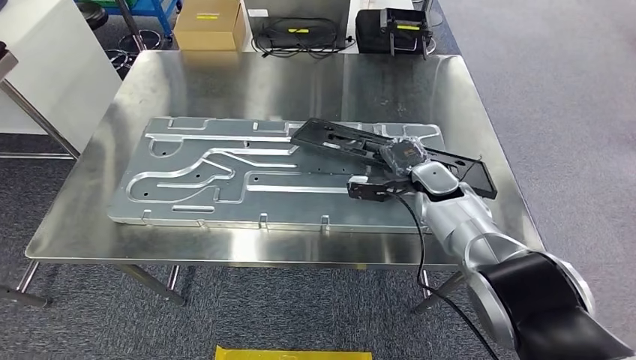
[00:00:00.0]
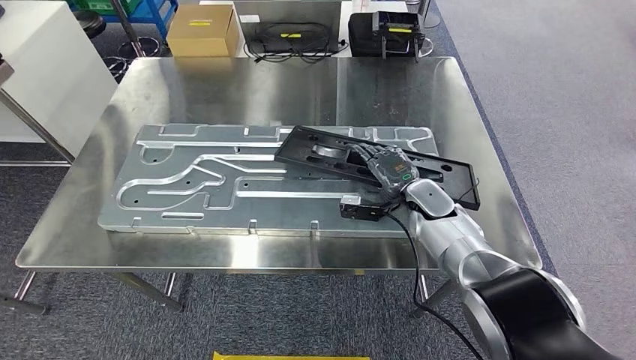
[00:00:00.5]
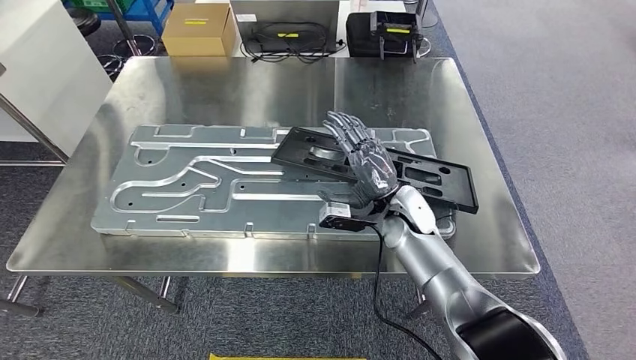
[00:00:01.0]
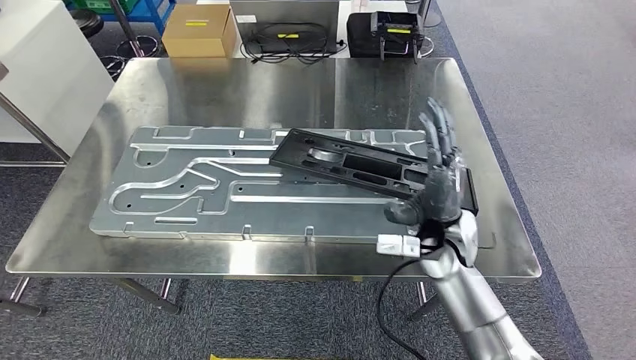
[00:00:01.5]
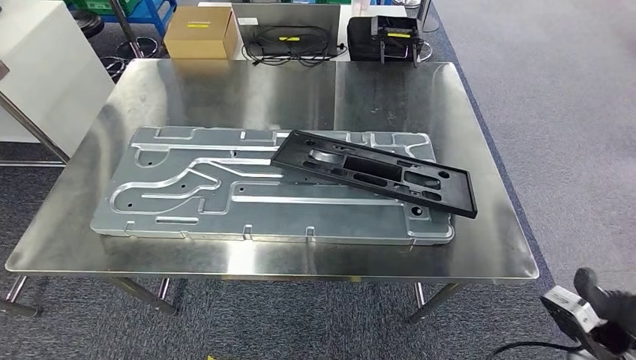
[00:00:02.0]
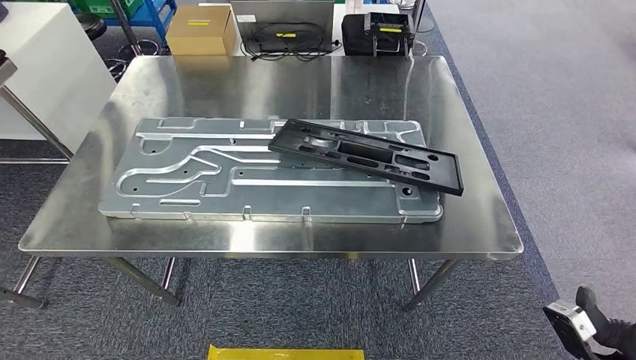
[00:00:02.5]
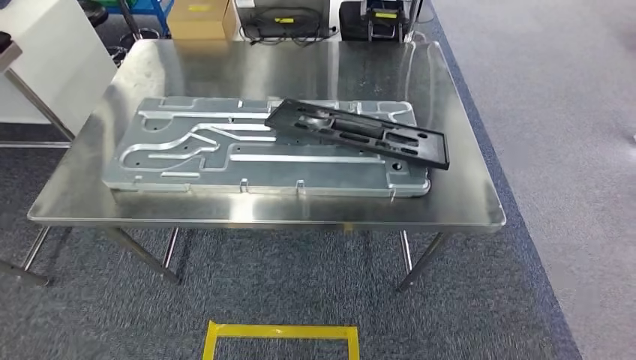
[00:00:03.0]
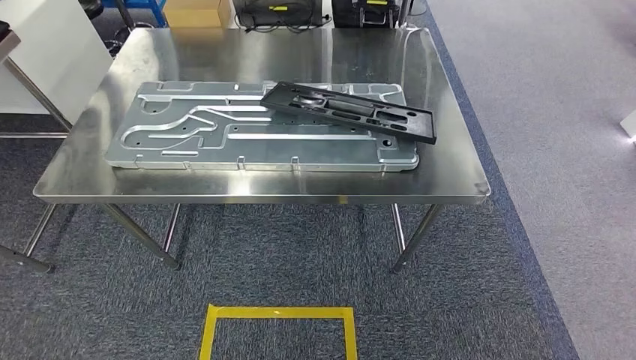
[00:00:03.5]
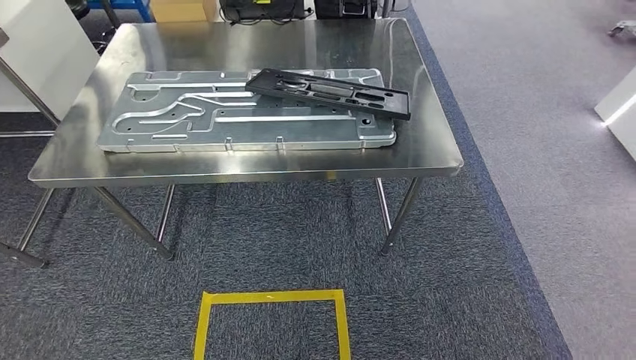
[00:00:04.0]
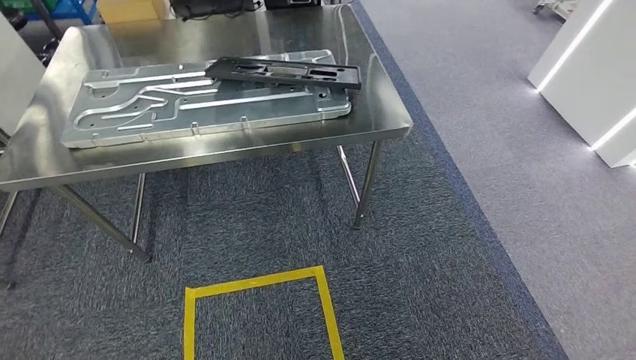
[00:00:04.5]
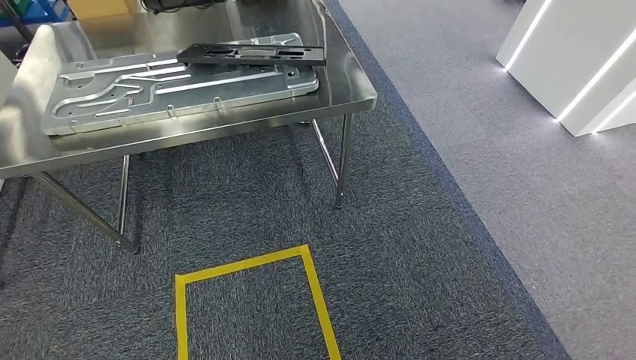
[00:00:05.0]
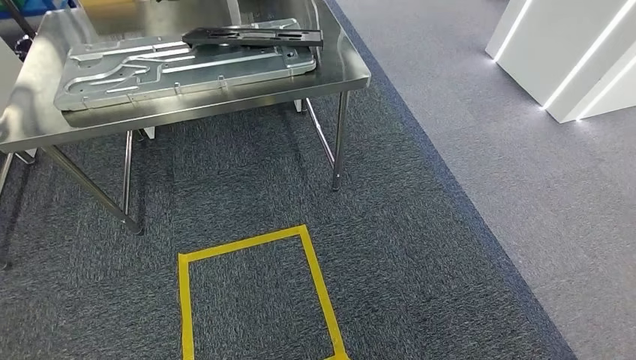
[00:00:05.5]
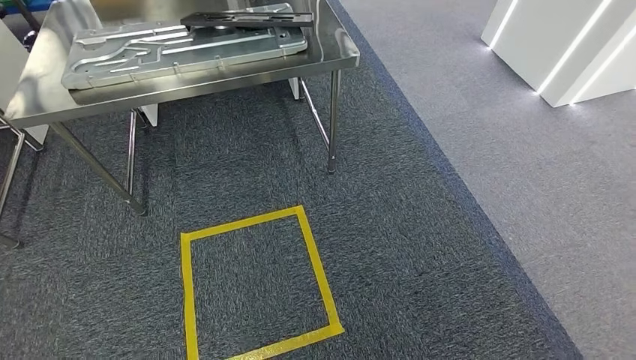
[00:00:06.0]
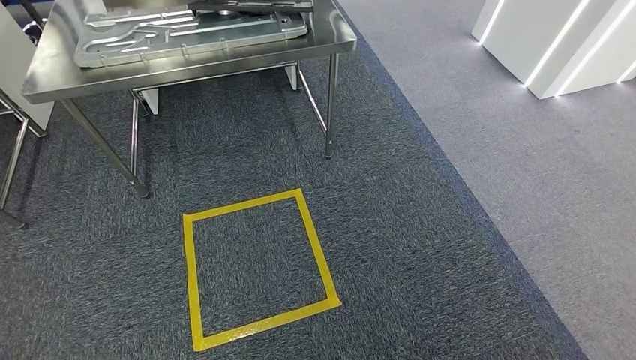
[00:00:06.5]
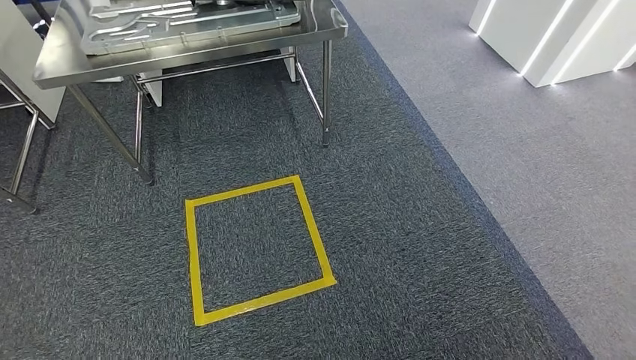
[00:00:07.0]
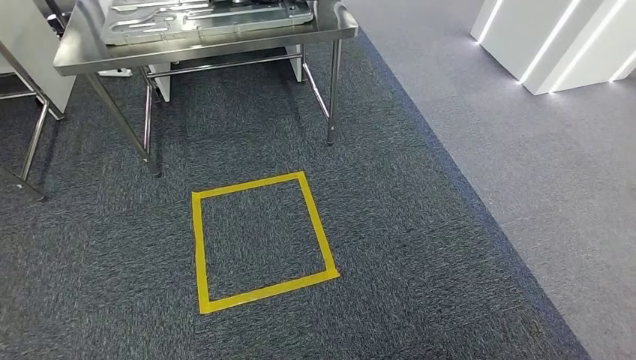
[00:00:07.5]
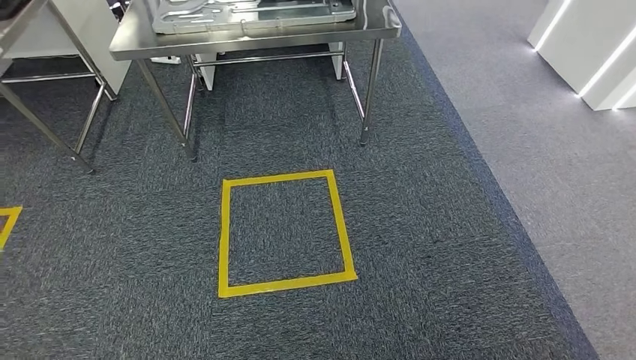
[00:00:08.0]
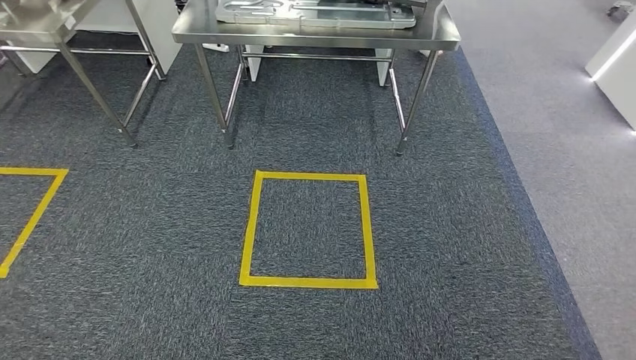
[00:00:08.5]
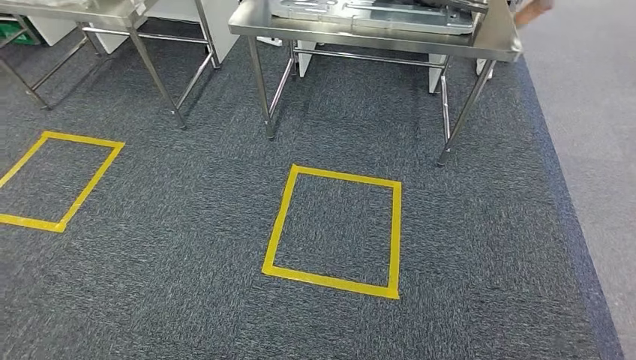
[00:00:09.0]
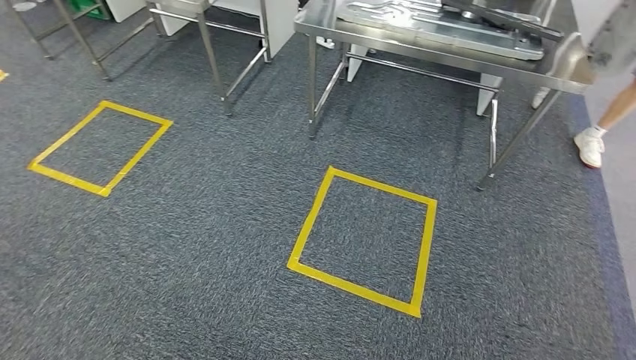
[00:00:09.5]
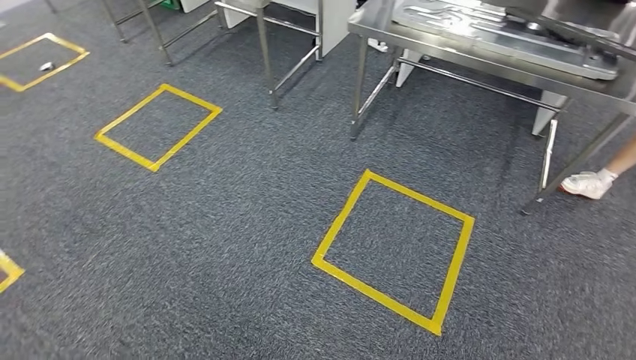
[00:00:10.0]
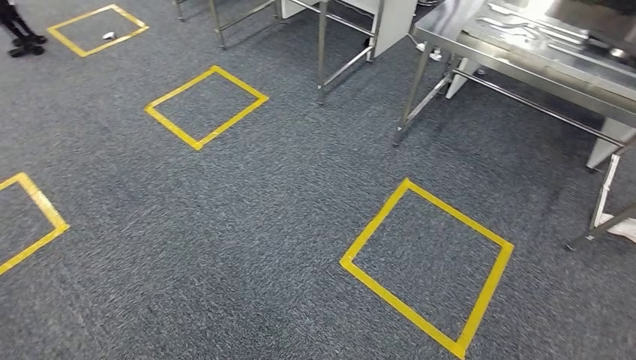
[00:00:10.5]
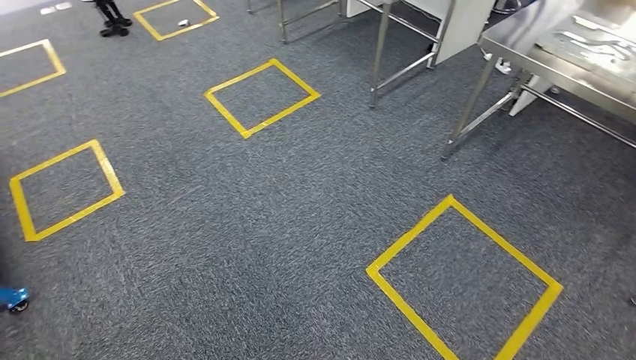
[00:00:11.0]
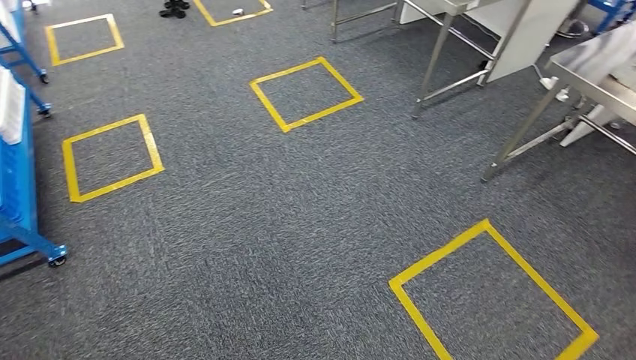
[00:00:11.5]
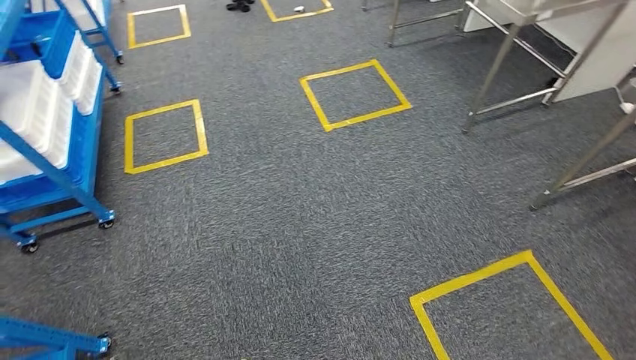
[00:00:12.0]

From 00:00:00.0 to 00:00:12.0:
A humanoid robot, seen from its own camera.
Step, from 00:00:00.0 to 00:00:02.0: Insert the large material into the corresponding hole on the workbench.

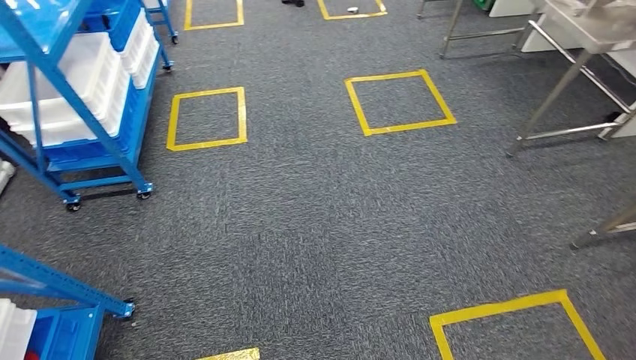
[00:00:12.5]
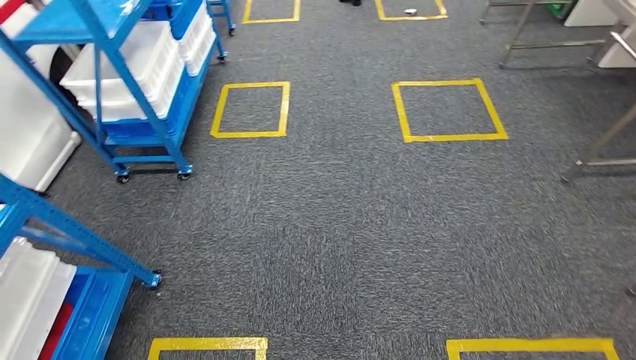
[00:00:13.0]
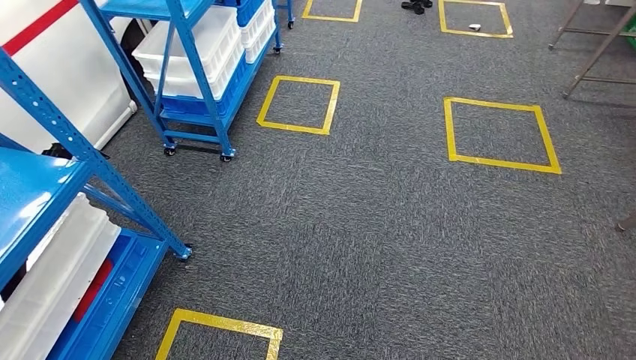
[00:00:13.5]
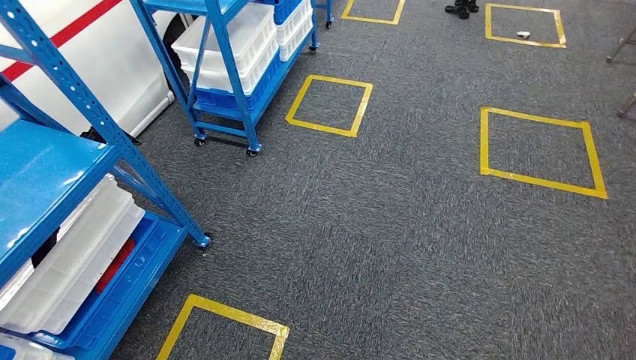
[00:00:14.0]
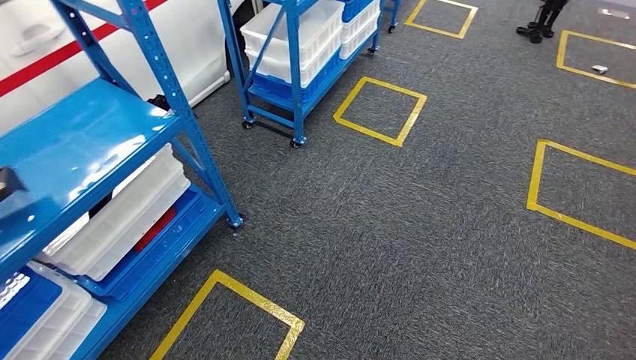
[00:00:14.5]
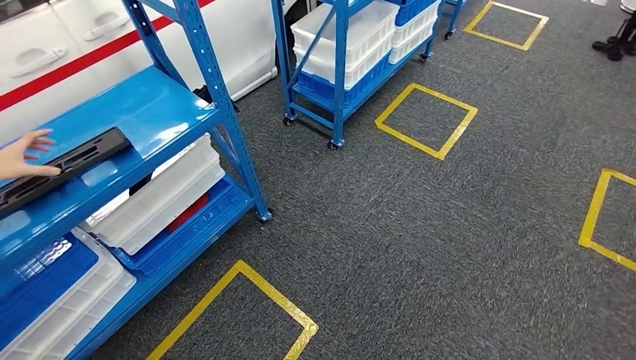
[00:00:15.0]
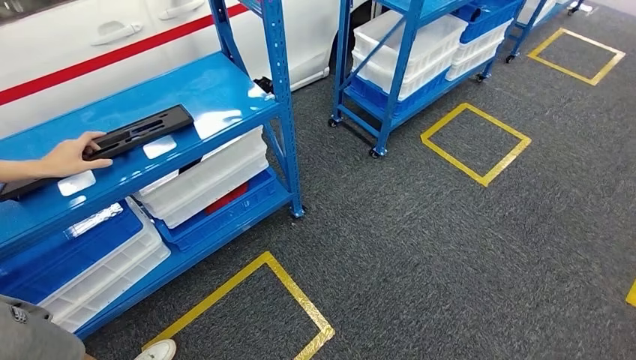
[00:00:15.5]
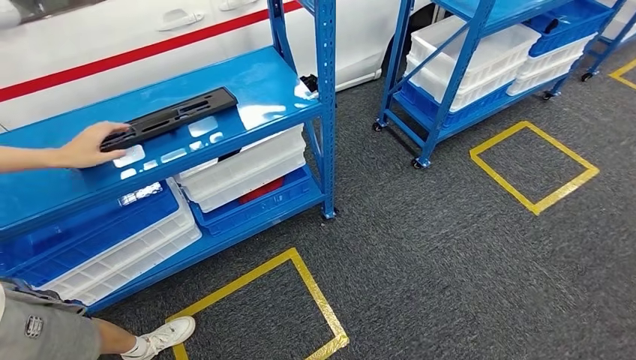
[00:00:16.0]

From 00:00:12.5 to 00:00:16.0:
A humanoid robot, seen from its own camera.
Step, from 00:00:12.5 to 00:00:16.0: Move to the initial position of the shelf.
